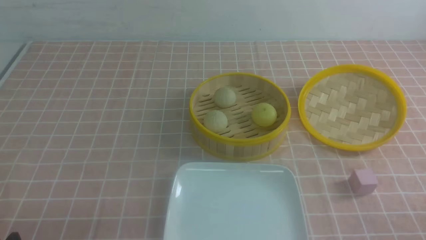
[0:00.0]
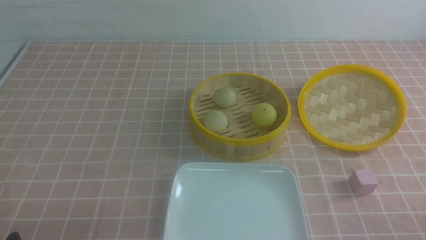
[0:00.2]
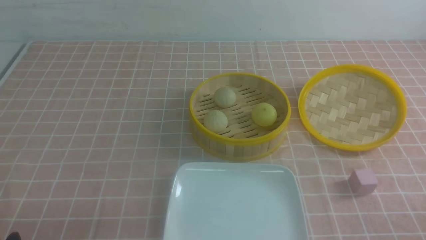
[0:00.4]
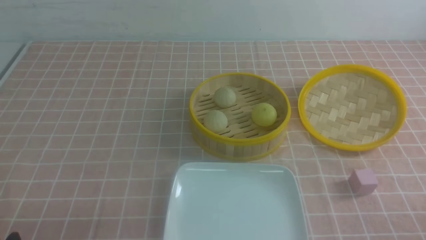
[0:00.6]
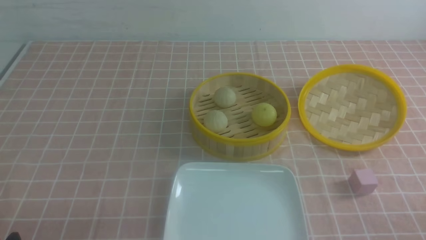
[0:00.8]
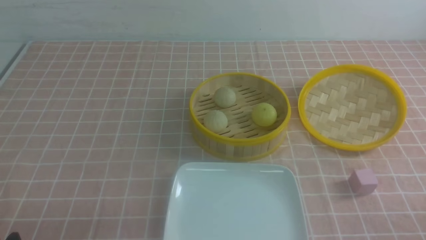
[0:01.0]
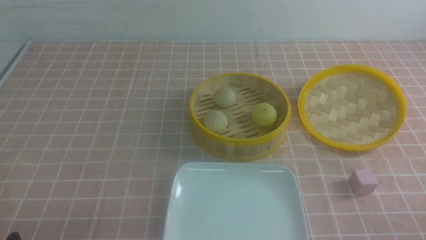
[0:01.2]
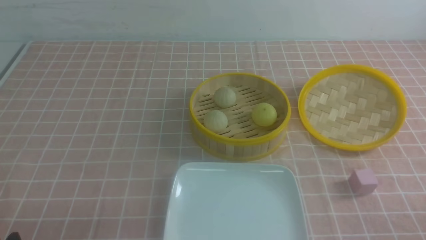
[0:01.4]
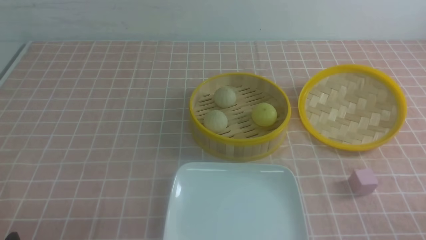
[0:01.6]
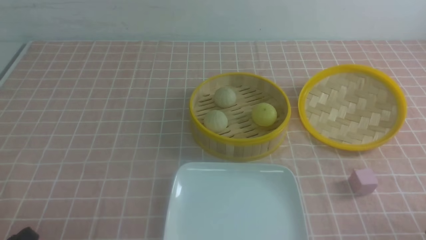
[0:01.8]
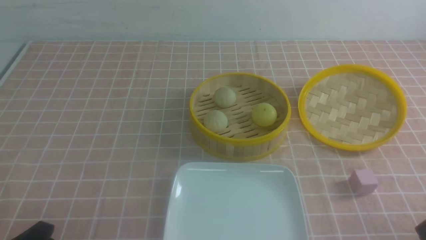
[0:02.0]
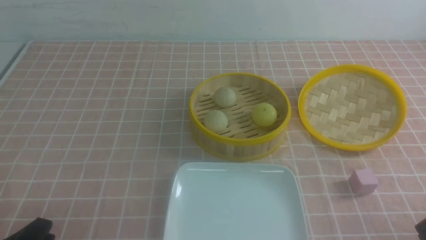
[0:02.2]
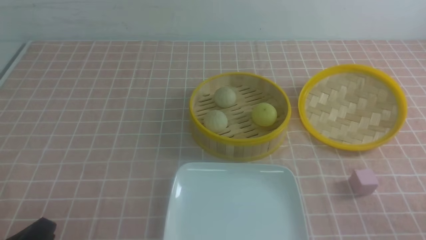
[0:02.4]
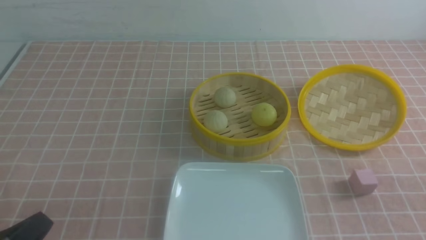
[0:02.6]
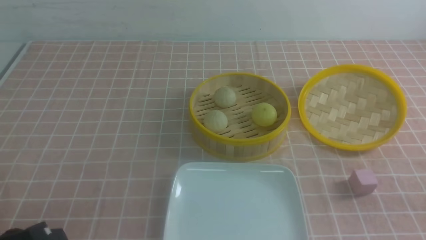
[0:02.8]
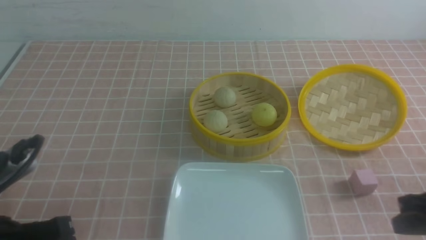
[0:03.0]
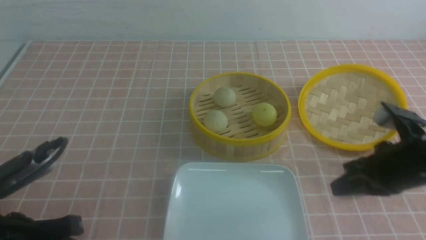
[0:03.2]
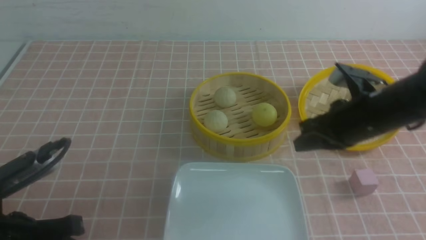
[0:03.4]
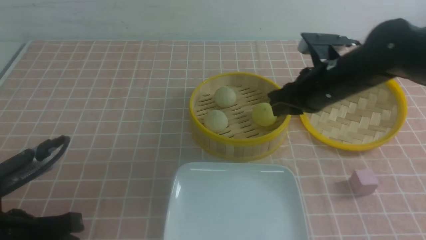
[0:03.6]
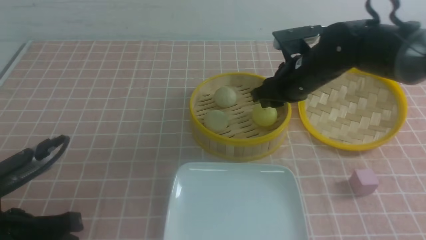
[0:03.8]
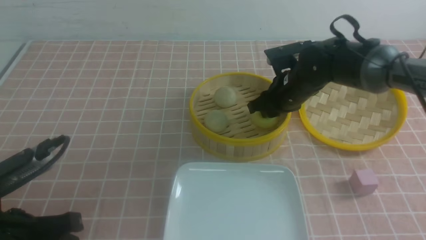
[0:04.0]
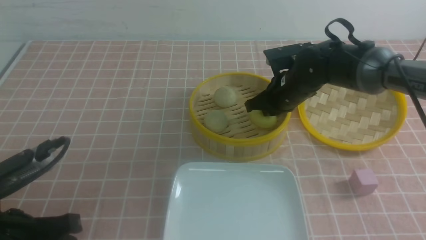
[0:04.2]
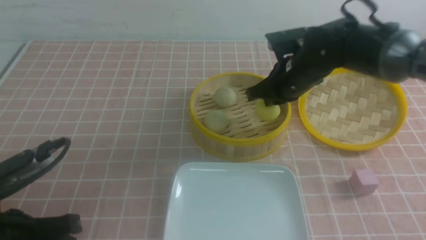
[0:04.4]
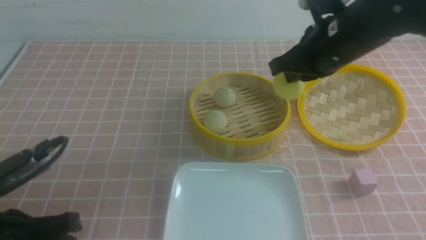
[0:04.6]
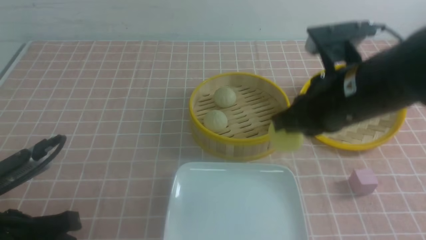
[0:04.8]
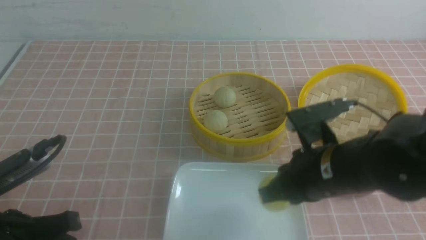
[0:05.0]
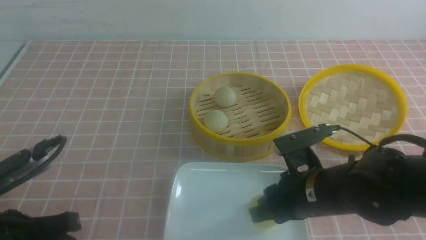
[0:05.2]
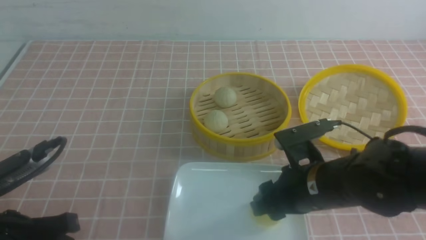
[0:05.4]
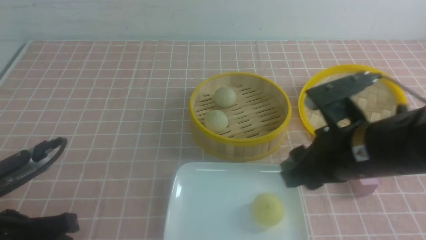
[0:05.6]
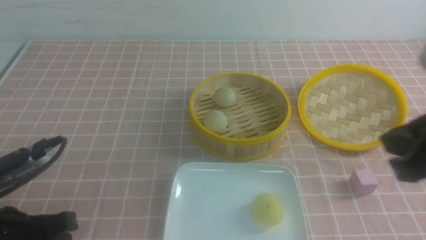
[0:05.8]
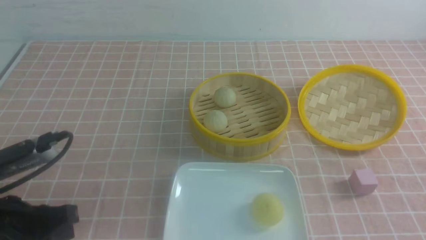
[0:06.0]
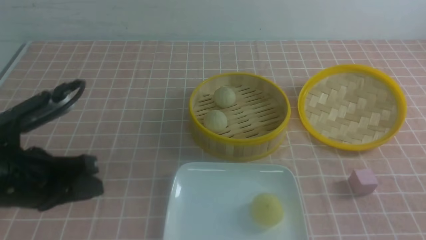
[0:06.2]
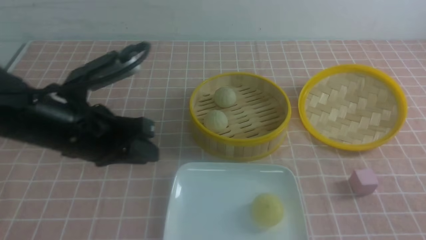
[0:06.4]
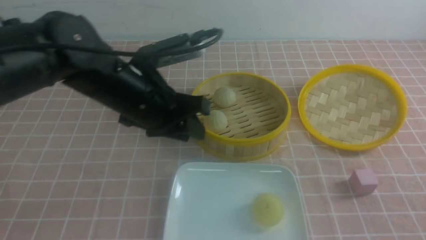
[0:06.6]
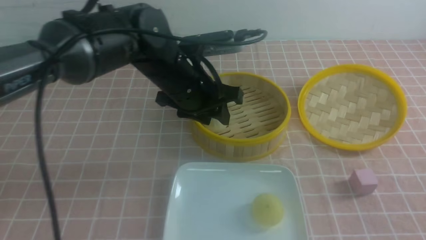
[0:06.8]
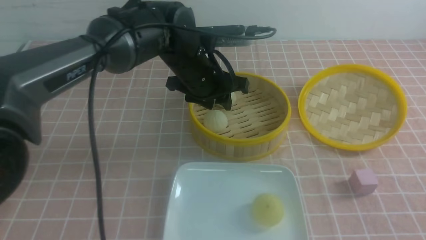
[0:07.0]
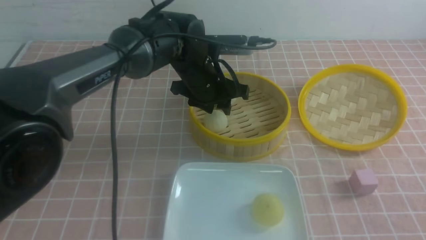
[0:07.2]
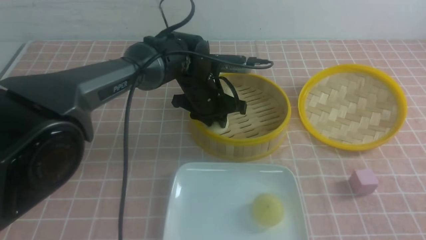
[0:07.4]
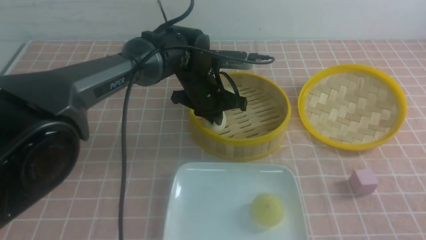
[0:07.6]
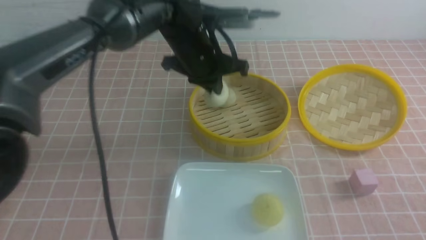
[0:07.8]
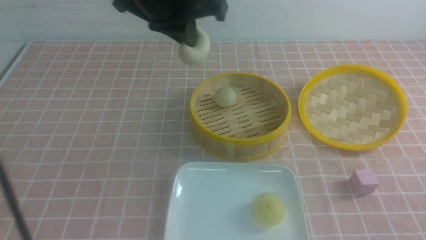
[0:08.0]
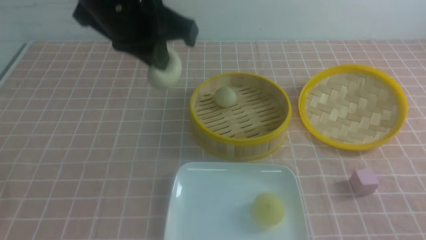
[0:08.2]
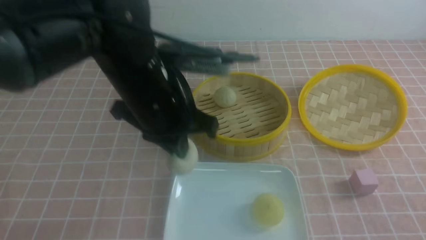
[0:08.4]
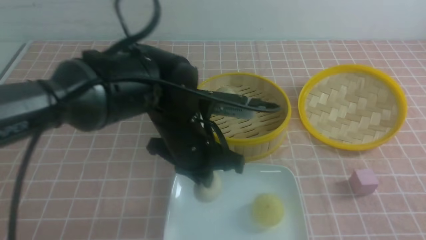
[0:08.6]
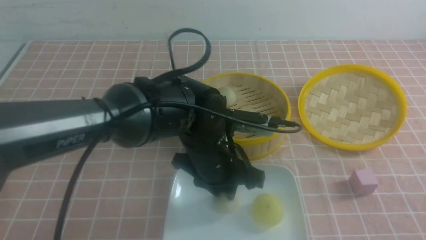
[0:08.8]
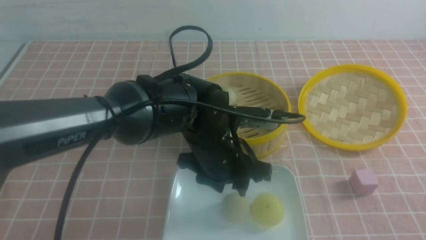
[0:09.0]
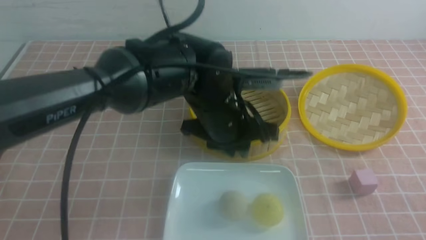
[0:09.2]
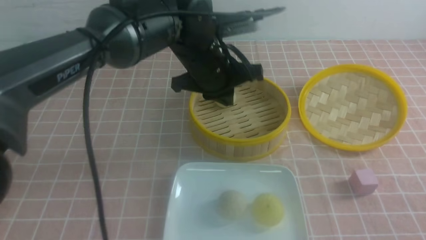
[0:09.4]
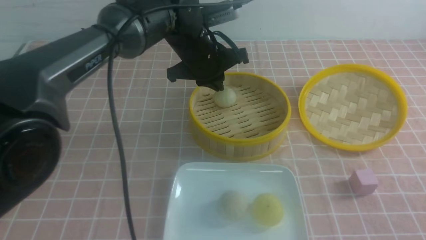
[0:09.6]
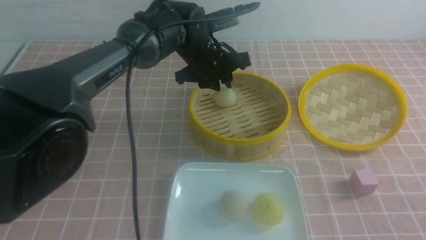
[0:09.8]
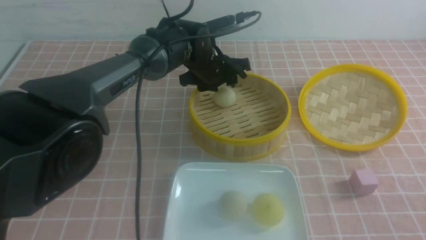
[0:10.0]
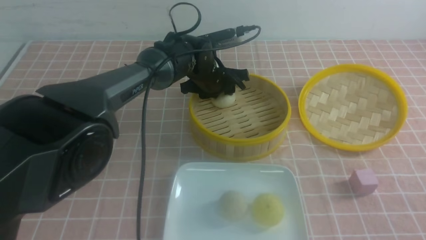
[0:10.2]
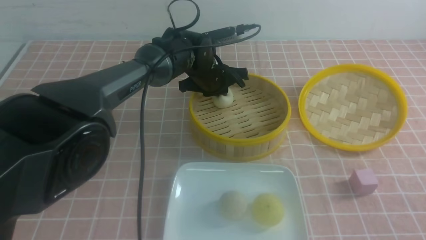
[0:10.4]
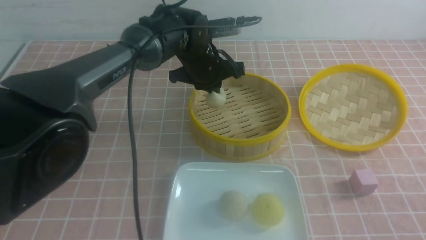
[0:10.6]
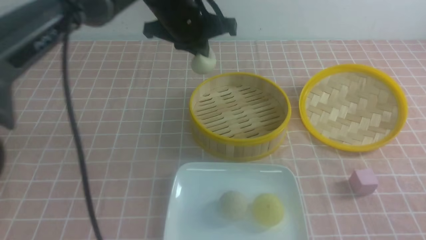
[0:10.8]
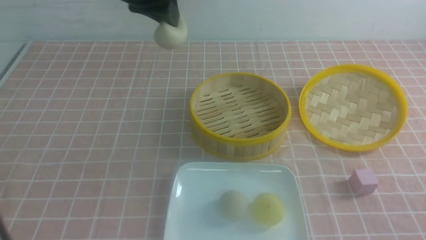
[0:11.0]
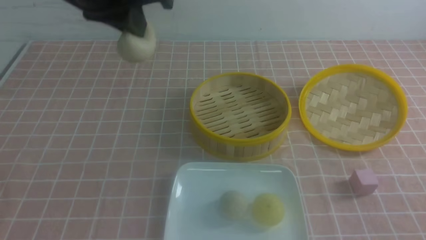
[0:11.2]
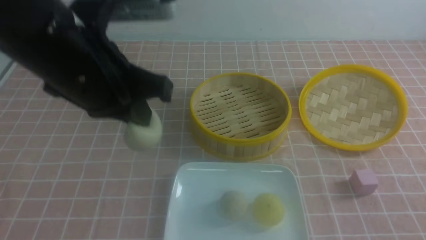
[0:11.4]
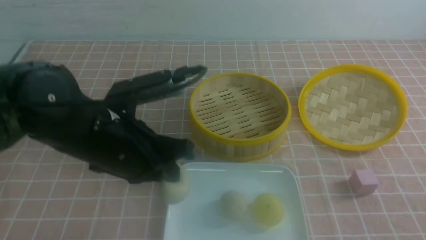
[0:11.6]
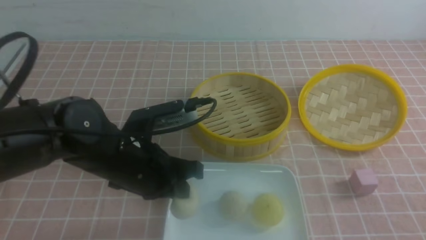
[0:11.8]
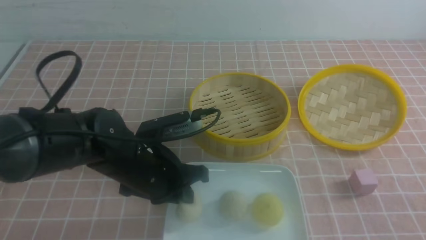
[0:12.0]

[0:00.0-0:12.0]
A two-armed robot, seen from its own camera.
Step, 0:00.0 to 0:04.2: use the right arm to grab the steamed stuffed bun that is closest to it.
Step, 0:04.4 to 0:05.4: use the right arm to put the steamed stuffed bun into the plate.
Step, 0:05.6 to 0:07.4: use the left arm to grab the steamed stuffed bun that is closest to it.
Step, 0:07.8 to 0:08.8: use the left arm to put the steamed stuffed bun into the plate.
Step, 0:09.2 to 0:10.4: use the left arm to grab the steamed stuffed bun that is closest to it.
0:01.6 to 0:03.0: The right gripper heads forward and upward, covering roughly 15 cm, and closes. The left gripper heads upward and forward, covering some 10 cm, and closes its fingers.
0:03.0 to 0:04.4: The right gripper travels forward and to the left by about 25 cm, and opens and closes again.
0:04.4 to 0:06.0: The right gripper goes approximately 35 cm backward and to the right, and opens, then closes once more.
0:06.0 to 0:07.6: The left gripper heads forward and to the right, covering some 35 cm, and opens and closes again, while the right gripper moves downward, about 10 cm.
0:07.6 to 0:09.0: The left gripper moves backward, some 10 cm, goes upward and returns, some 15 cm each way, and opens up.
0:09.0 to 0:10.4: The left gripper shifts roughly 20 cm forward, and closes.
0:10.4 to 0:12.0: The left gripper heads backward and to the left, covering about 25 cm, and goes upward and returns, approximately 20 cm each way.

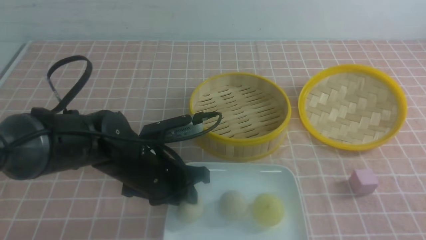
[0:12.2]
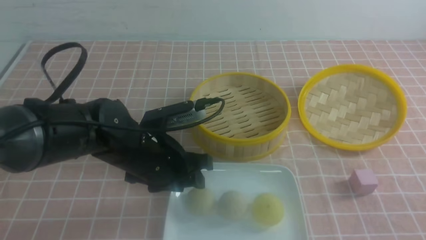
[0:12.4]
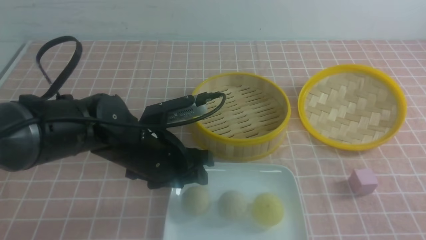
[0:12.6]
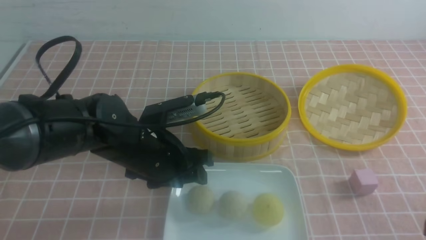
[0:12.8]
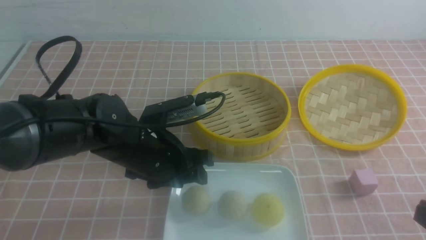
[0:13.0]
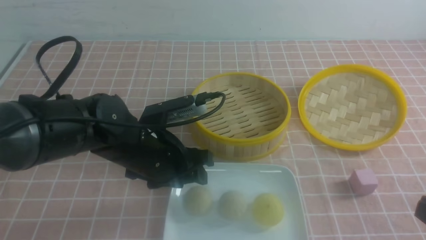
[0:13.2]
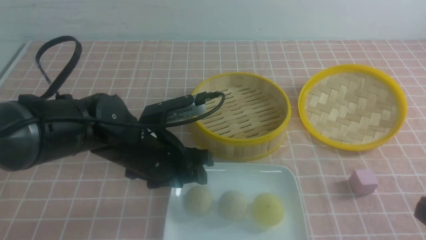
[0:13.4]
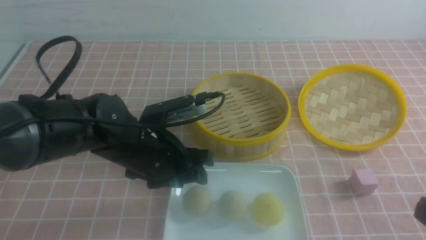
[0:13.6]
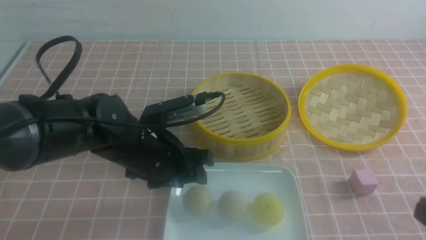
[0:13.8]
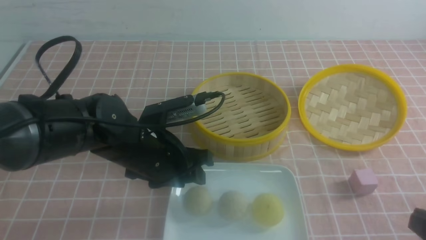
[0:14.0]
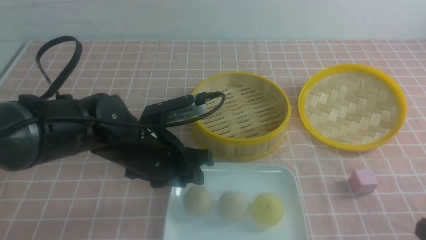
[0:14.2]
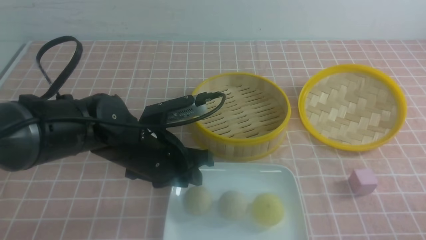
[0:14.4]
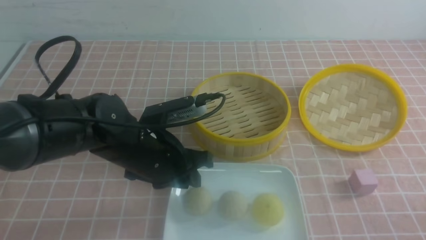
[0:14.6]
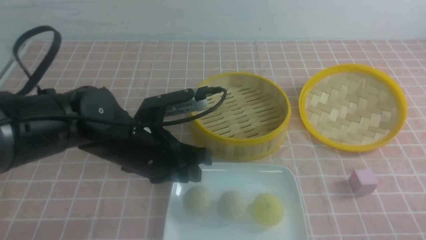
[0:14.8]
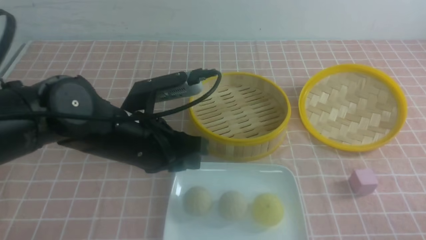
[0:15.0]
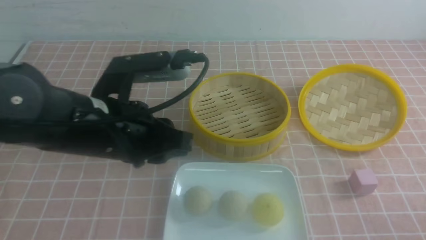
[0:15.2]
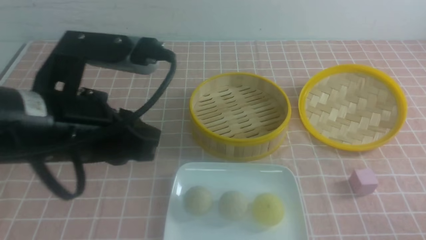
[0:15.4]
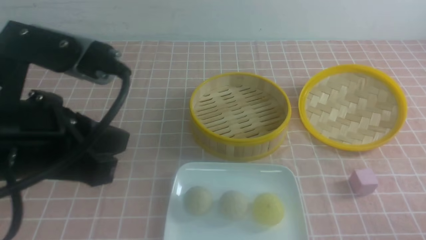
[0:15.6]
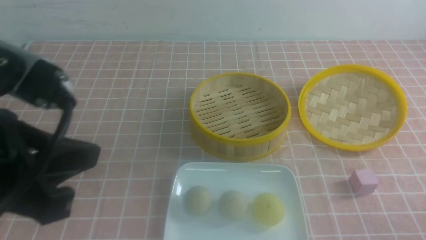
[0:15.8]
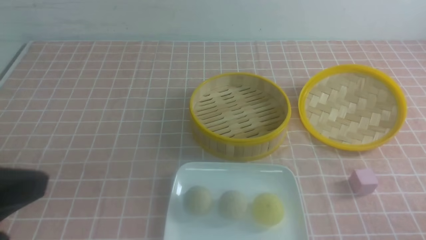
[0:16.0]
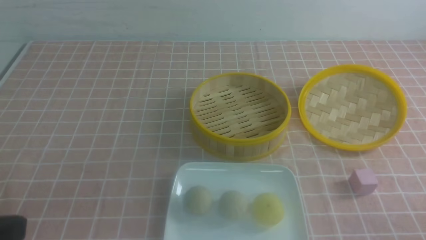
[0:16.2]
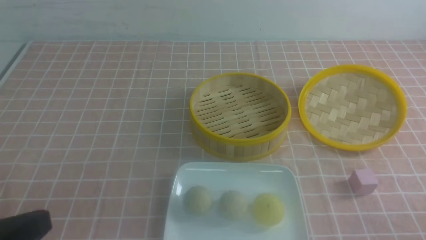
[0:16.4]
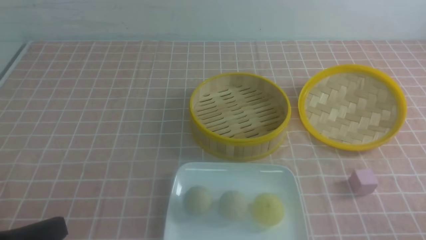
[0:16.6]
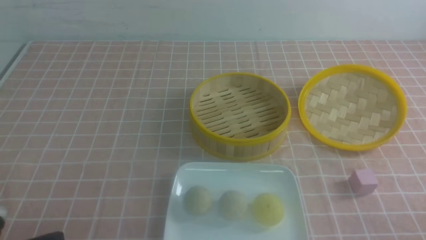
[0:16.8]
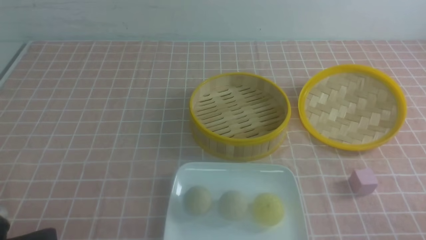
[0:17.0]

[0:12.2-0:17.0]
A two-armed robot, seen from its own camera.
0:12.2 to 0:13.8: The left gripper opens its fingers.
0:13.8 to 0:15.4: The right gripper is displaced downward by roughly 10 cm. Meanwhile the left gripper goes approximately 15 cm upward, backward and to the left, and closes.
0:15.4 to 0:17.0: The left gripper goes some 15 cm backward, downward and to the left, and closes up.
